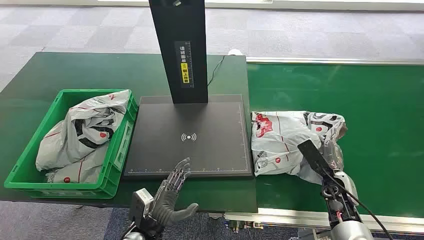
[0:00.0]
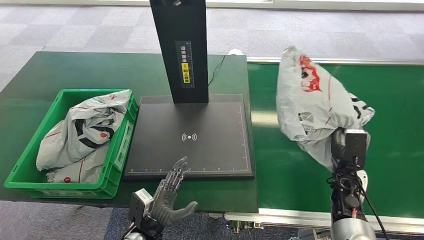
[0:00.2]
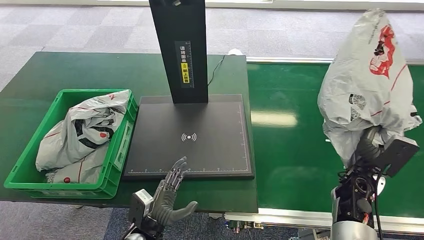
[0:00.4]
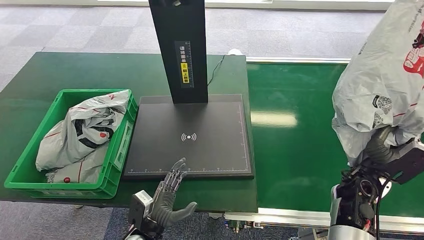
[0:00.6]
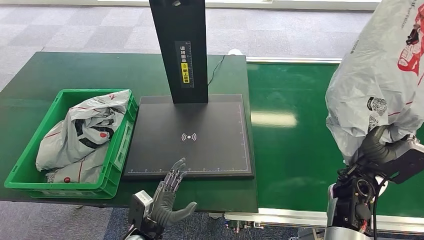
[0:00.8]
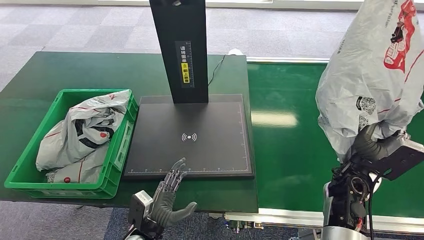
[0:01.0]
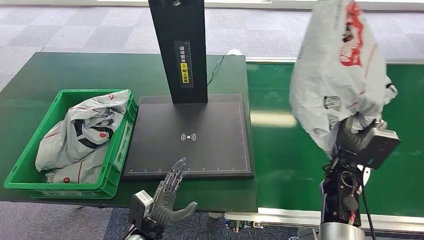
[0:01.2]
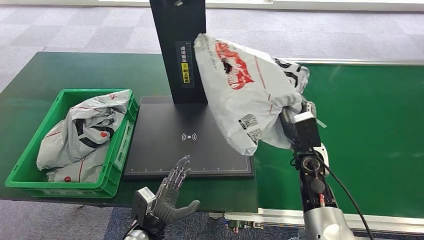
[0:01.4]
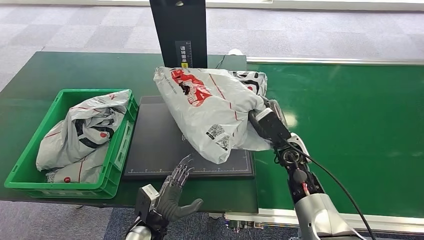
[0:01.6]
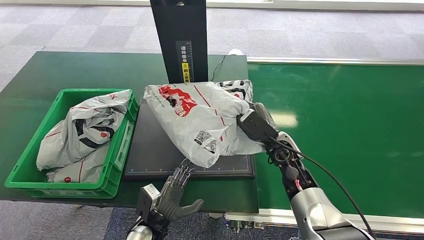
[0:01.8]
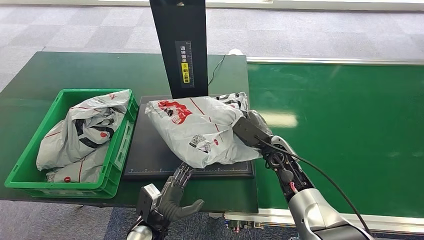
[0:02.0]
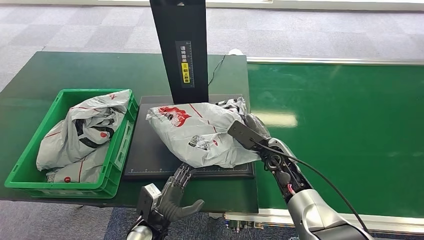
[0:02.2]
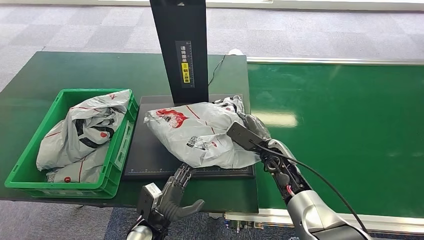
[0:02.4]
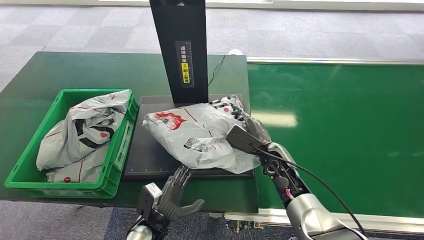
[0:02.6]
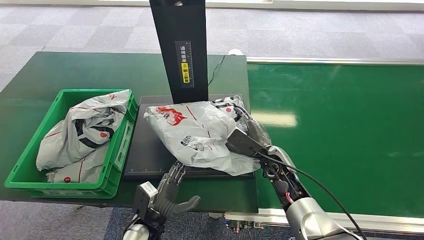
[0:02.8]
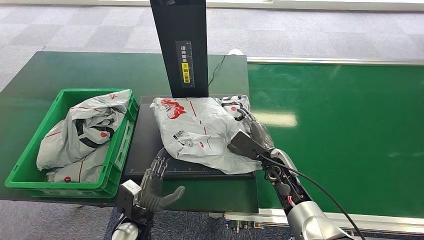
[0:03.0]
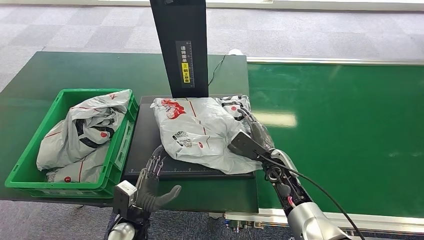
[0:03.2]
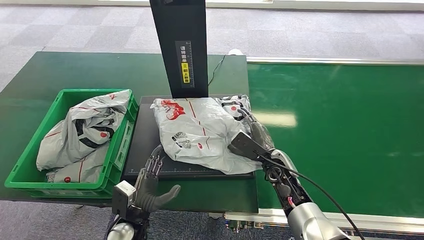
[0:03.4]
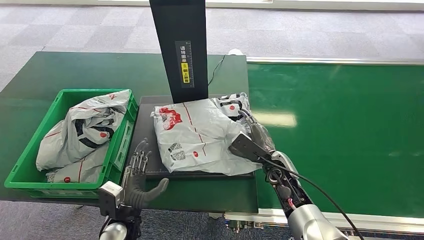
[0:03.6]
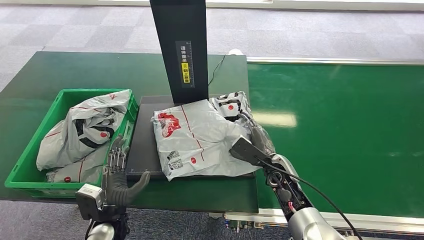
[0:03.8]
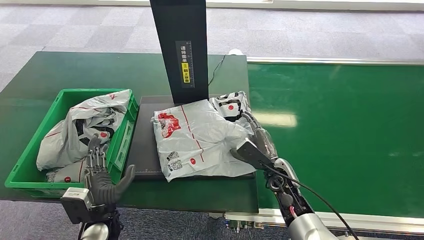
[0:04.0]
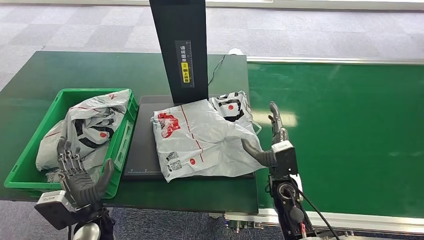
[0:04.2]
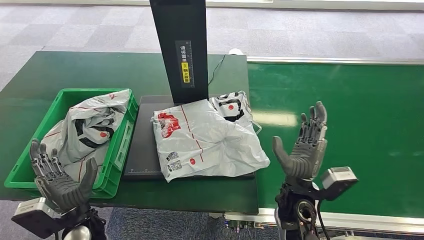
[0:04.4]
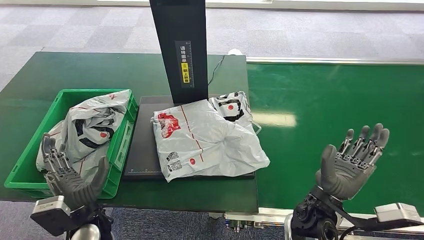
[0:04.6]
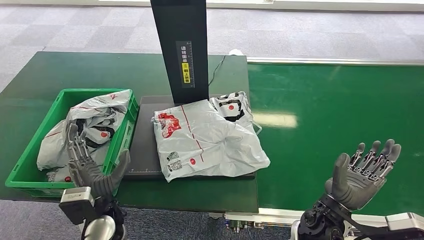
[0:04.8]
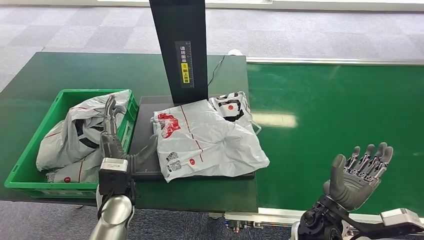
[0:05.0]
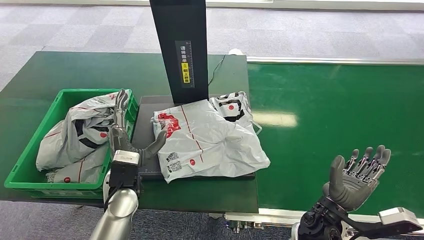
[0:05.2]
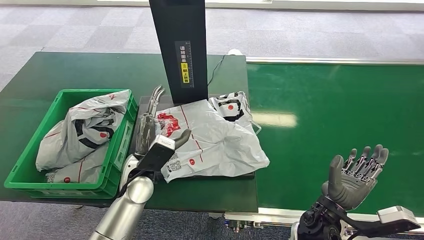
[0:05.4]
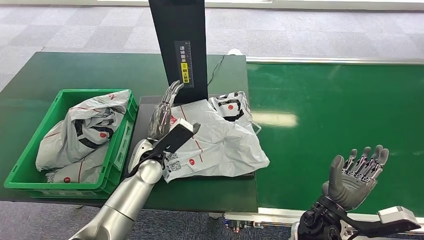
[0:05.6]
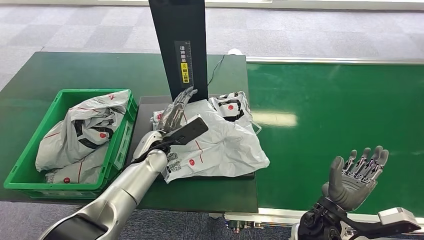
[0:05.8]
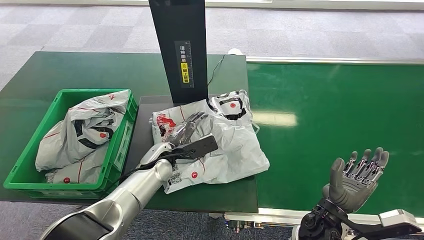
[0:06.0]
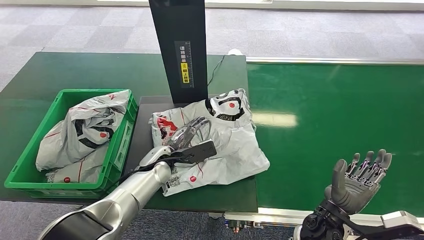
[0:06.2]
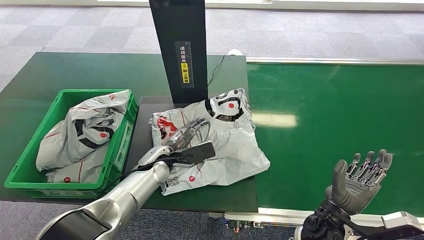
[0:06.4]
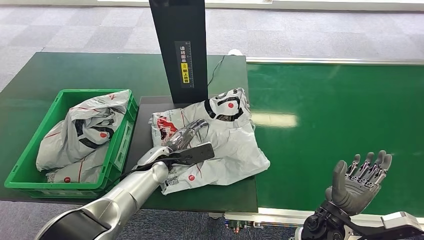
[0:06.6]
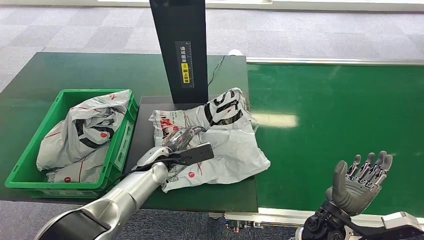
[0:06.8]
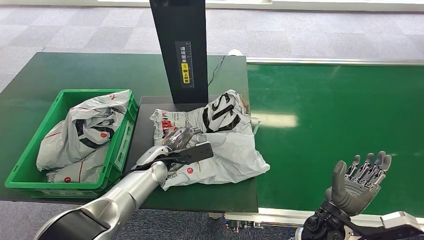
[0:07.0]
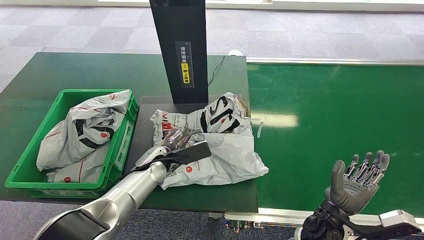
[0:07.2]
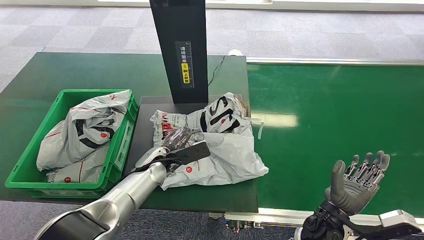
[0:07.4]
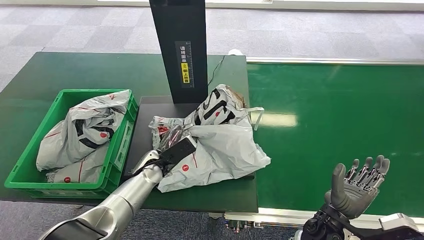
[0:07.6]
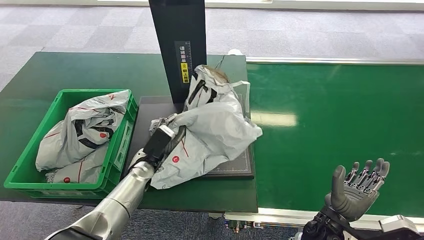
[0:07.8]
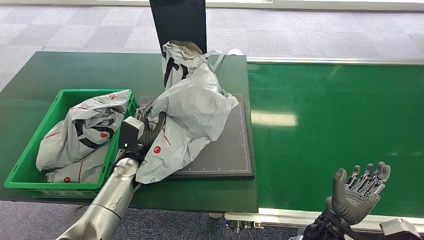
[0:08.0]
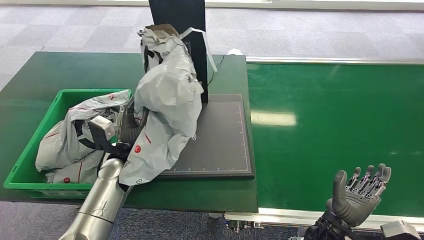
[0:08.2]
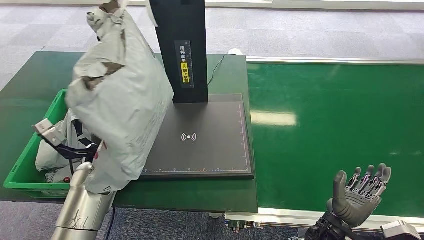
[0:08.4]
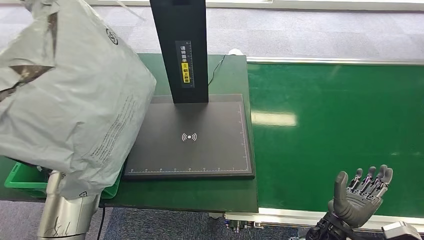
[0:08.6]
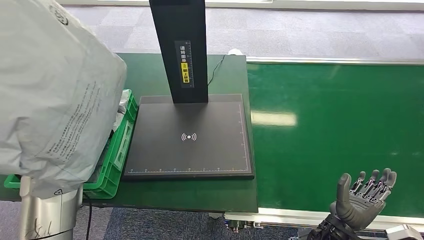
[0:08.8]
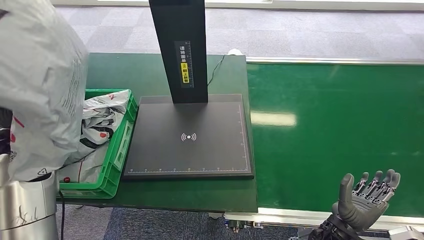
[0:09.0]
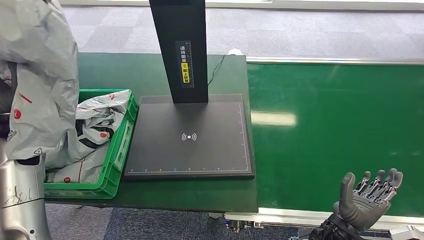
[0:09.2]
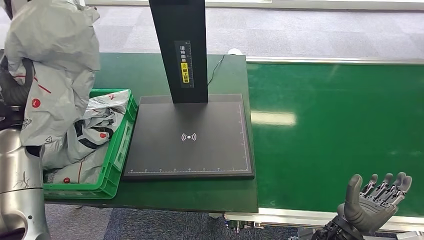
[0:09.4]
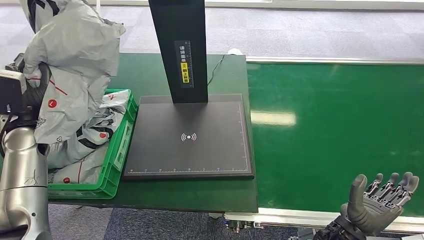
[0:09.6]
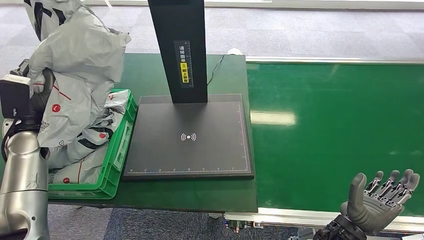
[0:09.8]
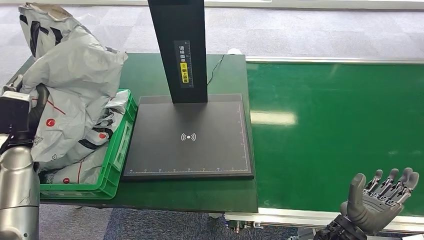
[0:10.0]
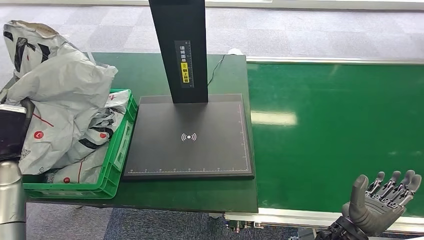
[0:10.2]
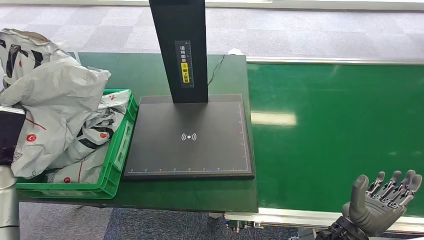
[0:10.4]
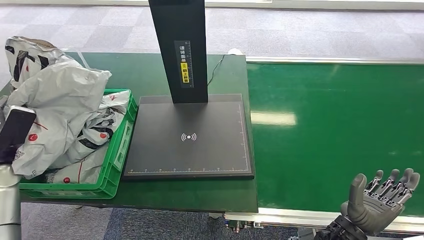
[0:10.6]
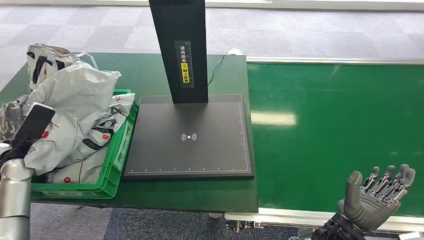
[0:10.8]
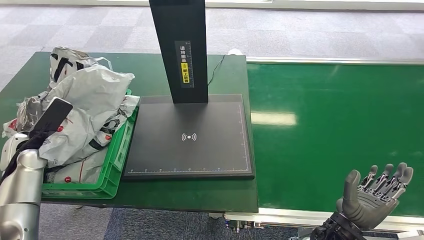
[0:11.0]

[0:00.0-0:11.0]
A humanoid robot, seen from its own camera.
Step, 0:03.4 to 0:03.6: Place the package onto the inbound machine.
0:01.6 to 0:03.2: The right hand shifts some 5 cm downward.
0:03.2 to 0:04.8: The left hand travels upward by about 10 cm, while the right hand goes some 15 cm backward.
0:04.8 to 0:06.2: The left hand goes some 15 cm forward and to the right.
0:09.4 to 0:11.0: The left hand travels downward by about 10 cm.

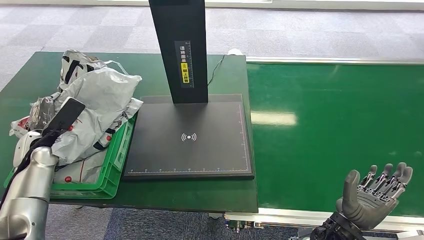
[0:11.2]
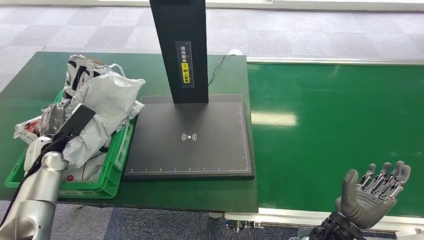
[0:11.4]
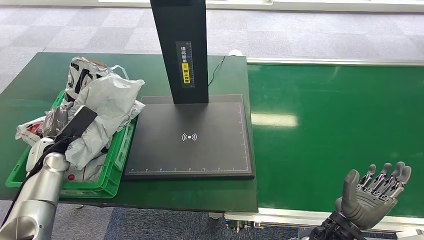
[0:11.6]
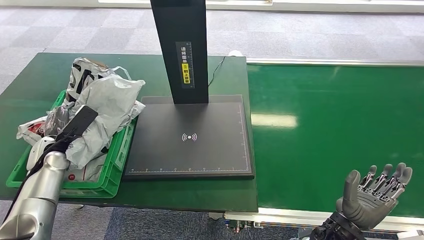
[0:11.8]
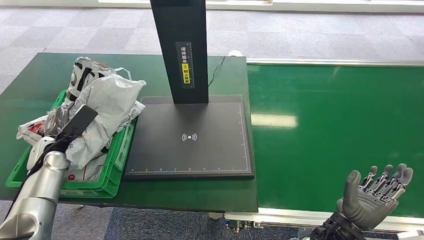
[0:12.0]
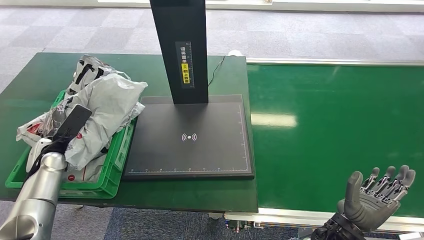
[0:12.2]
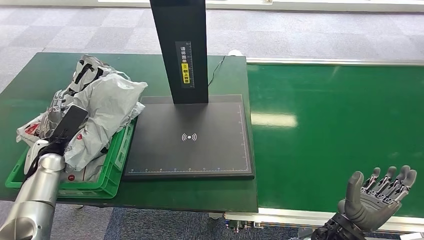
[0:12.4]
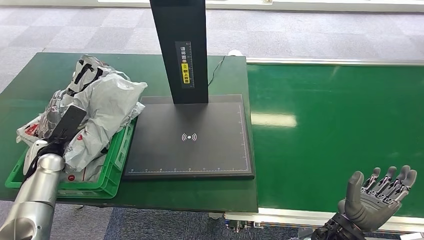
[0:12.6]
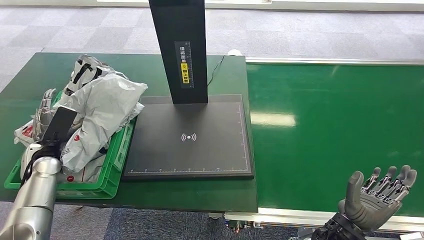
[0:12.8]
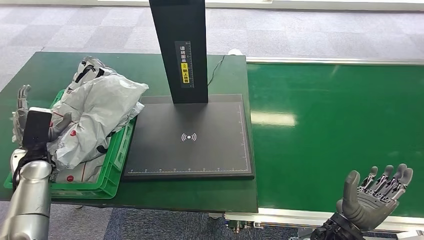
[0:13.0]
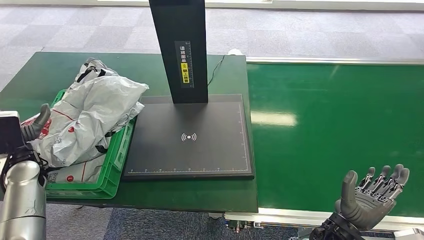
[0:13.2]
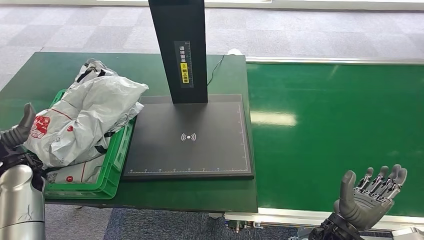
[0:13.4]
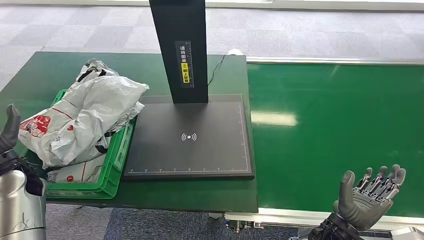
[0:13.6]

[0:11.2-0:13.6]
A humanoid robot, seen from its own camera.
0:11.2 to 0:12.4: The hands make only small movements.
0:12.4 to 0:13.6: The left hand heads backward, covering about 5 cm.

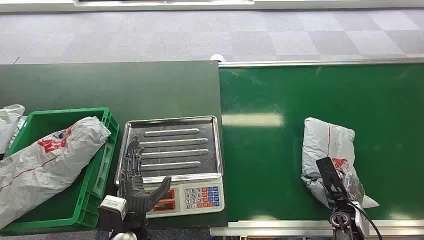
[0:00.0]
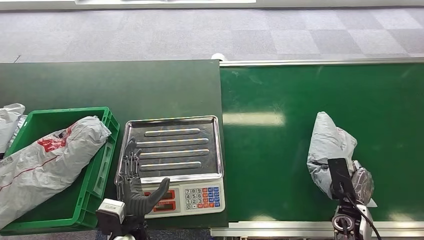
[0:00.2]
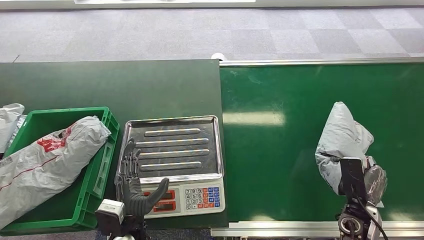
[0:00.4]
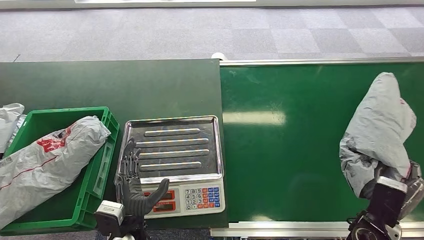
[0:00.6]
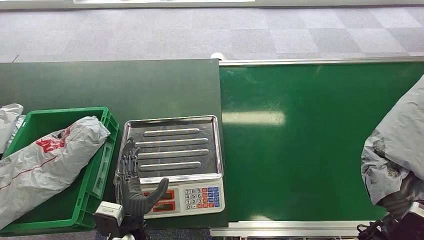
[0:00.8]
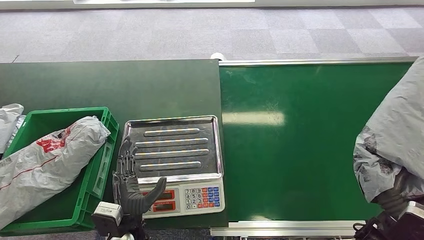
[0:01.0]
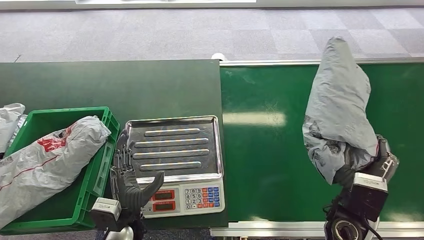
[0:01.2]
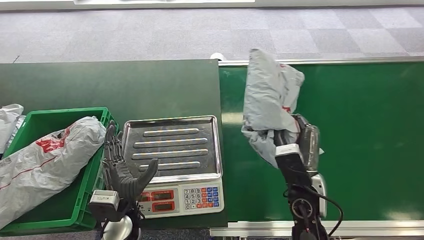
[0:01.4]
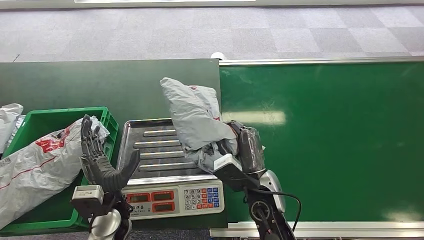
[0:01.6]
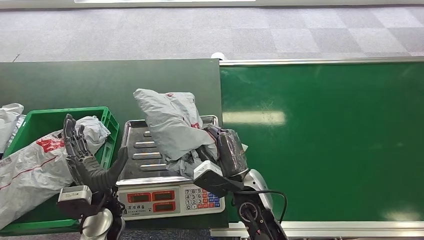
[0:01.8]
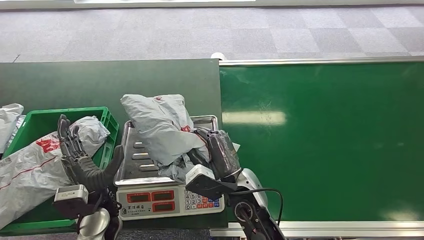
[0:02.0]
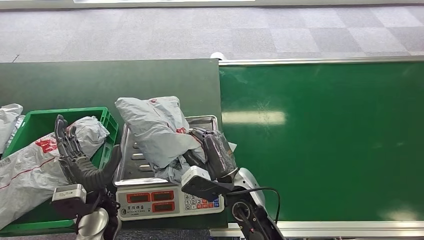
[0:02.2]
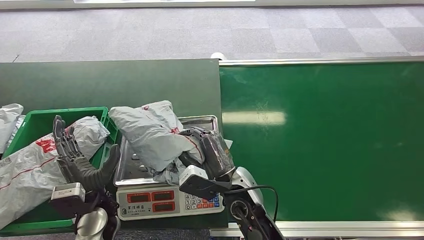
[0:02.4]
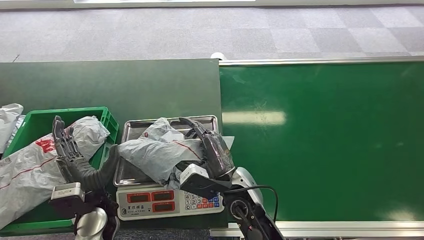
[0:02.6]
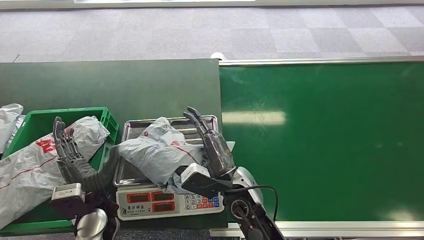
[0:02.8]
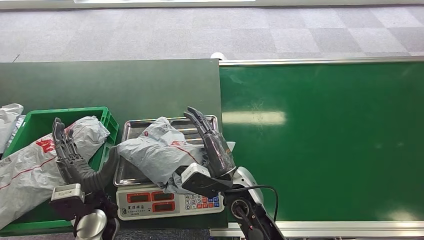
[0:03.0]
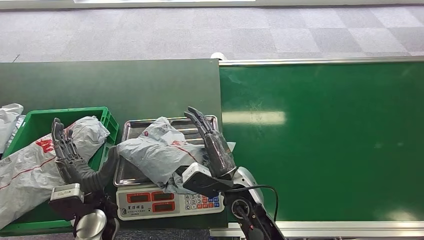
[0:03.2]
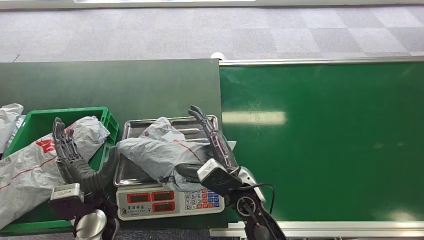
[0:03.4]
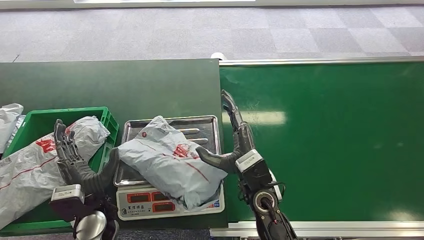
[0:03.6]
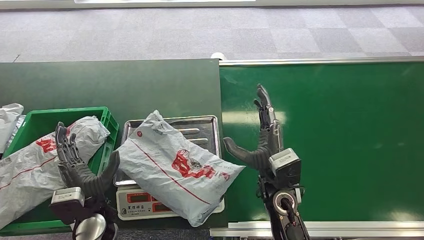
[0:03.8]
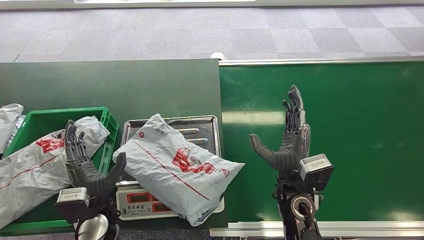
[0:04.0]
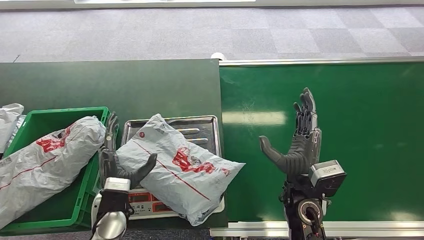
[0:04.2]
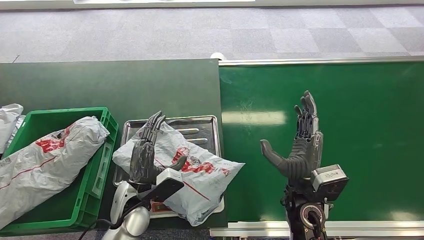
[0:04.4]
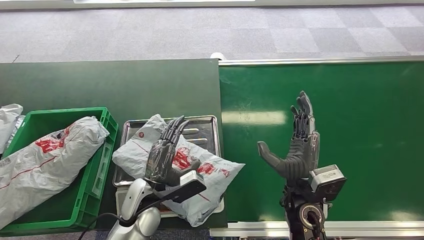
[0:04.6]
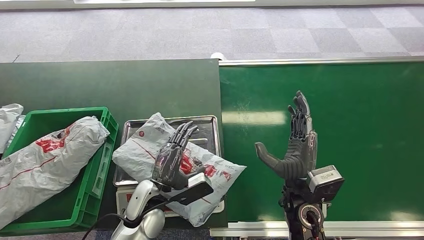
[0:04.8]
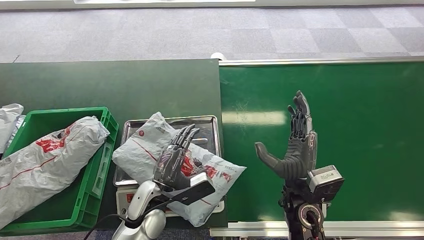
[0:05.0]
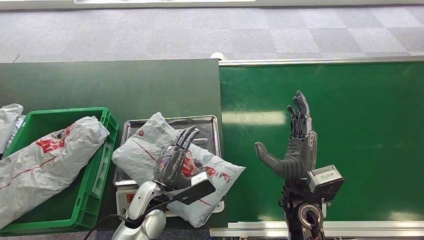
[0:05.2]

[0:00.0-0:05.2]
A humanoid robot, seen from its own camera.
Step, 0:00.0 to 0:01.2: Pick up the package from the conveyor belt.
Step, 0:01.6 to 0:03.4: Place the package onto the inbound machine.
0:01.8 to 0:03.4: The hands move only a little.
0:03.4 to 0:05.2: Both hands travel together to the right, approximately 10 cm.
